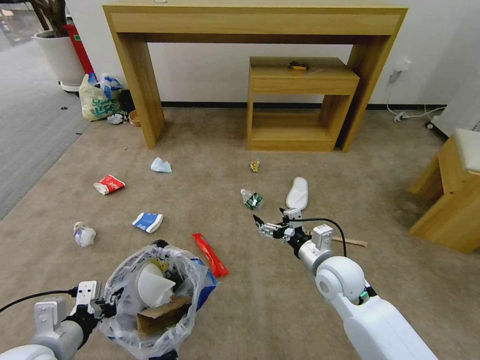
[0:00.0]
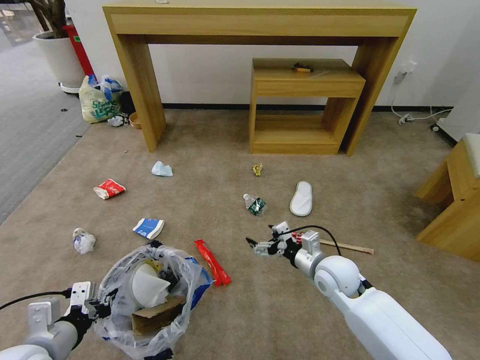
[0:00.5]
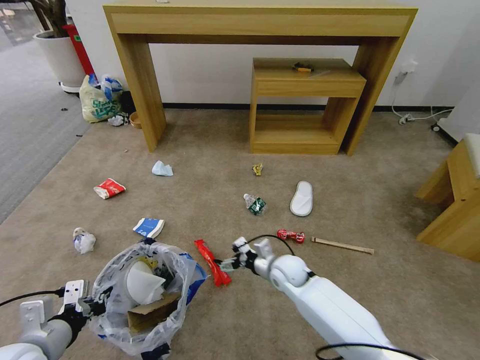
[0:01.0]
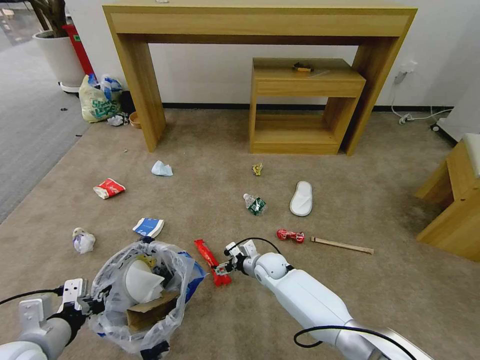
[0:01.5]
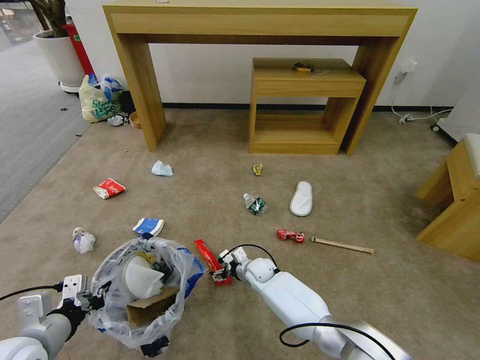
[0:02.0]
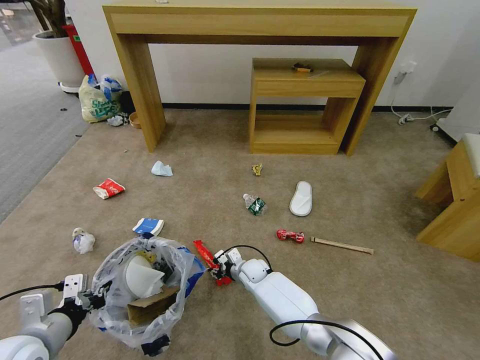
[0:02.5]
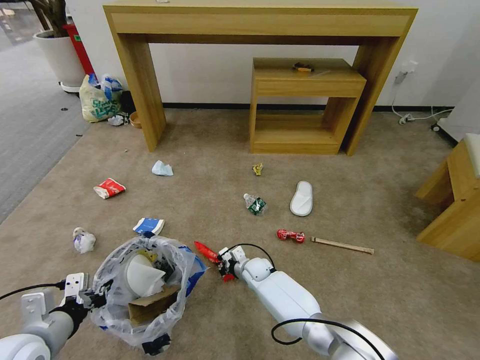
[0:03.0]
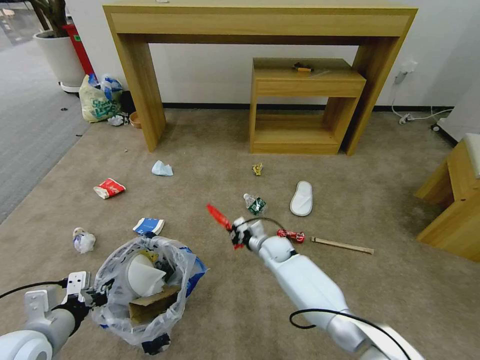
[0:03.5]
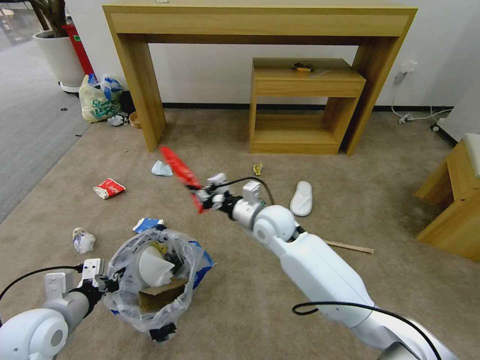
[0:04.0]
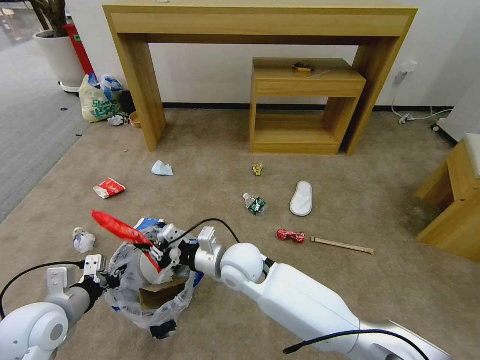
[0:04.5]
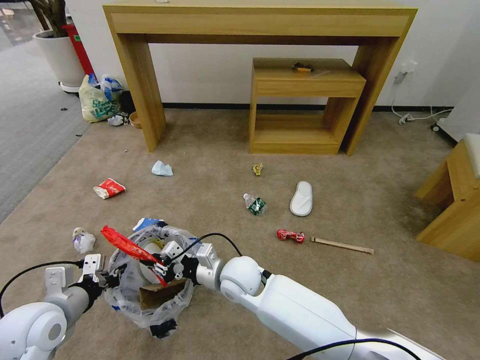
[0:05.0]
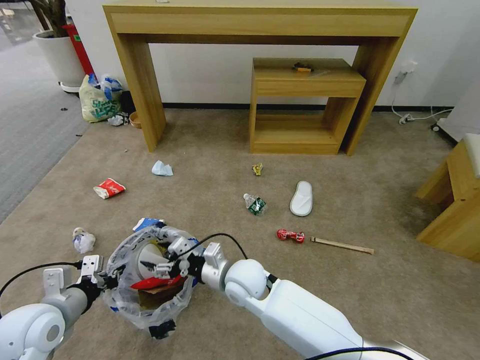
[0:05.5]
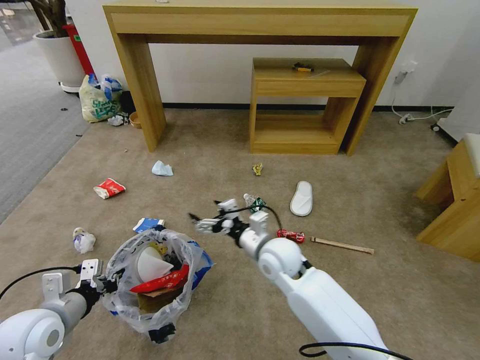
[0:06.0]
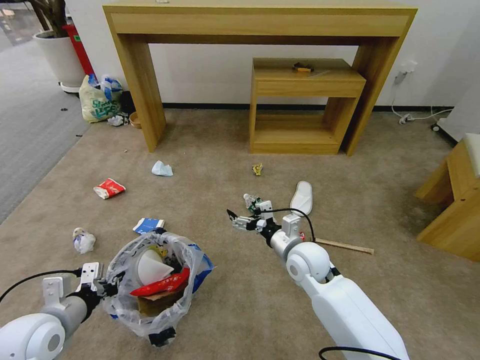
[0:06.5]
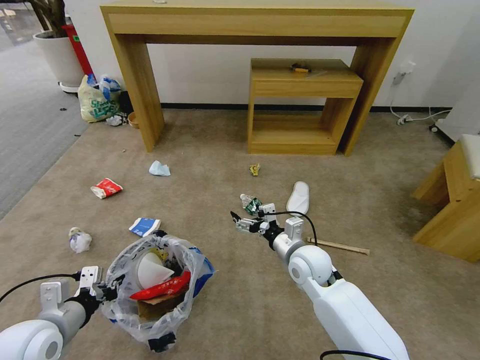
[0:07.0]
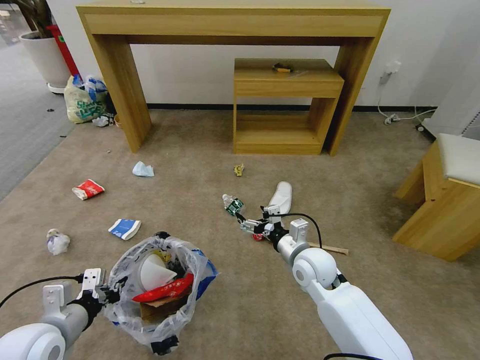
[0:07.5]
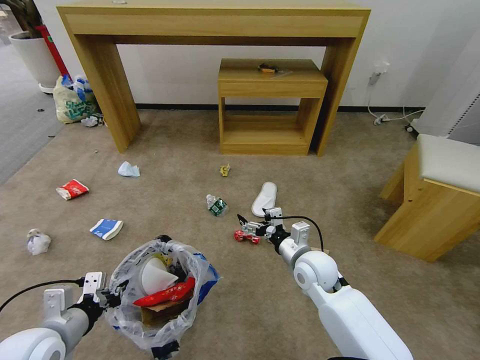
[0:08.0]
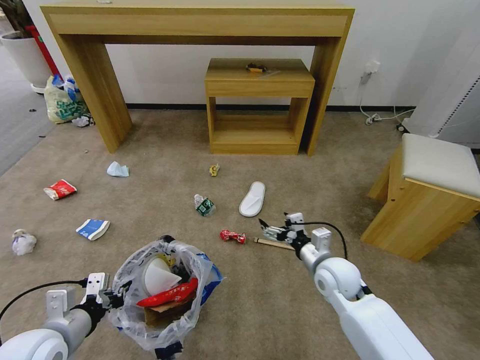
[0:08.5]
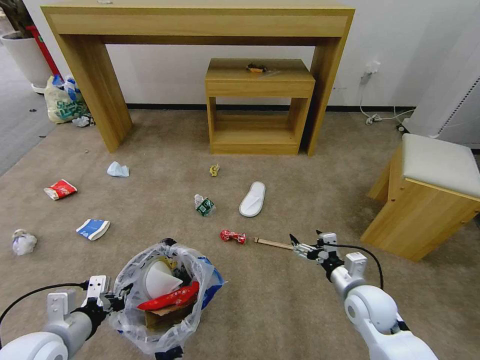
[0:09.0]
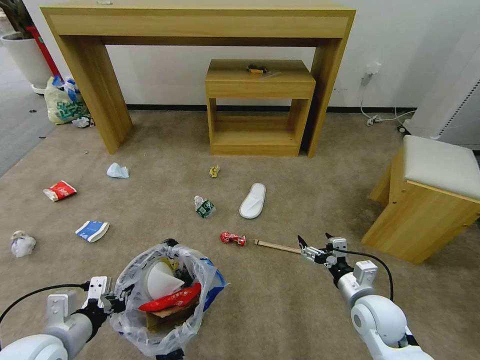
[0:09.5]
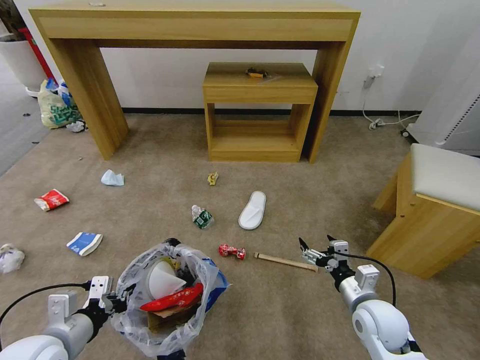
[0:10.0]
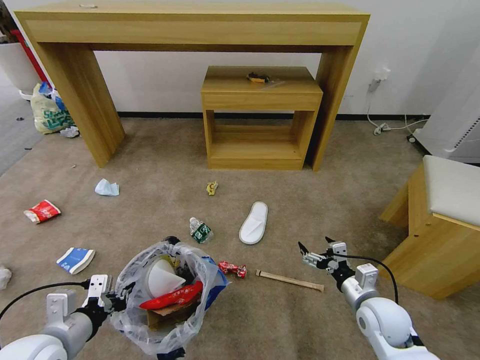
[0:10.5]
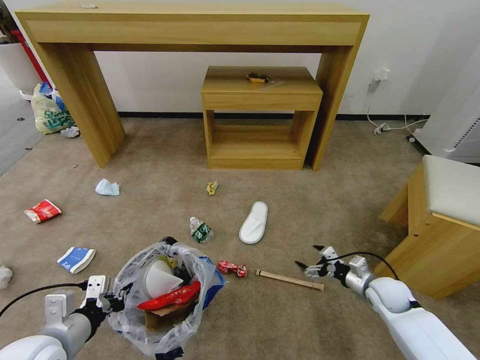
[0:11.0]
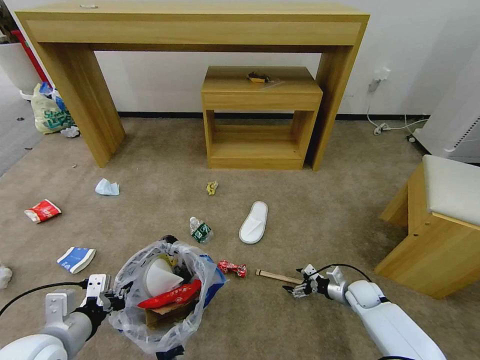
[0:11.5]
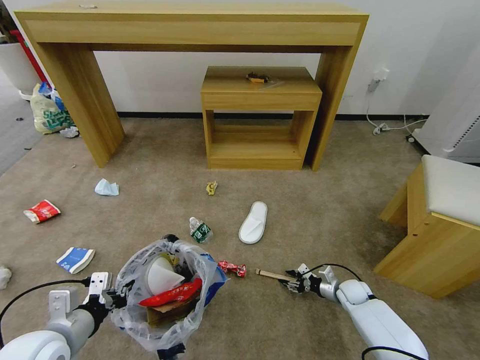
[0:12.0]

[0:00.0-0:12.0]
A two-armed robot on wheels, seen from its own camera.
Task of the whole recording: Pick up the trash bin and place the garbage on the floor into it.
0:00.0 to 0:02.0: The right gripper travels downward, to the left and forward by some 25 cm.
0:02.0 to 0:04.0: The left gripper ends up some 5 cm from where it was, while the right gripper heads upward, covering roughly 25 cm, and closes.
0:04.0 to 0:06.0: The right gripper heads backward, covering about 5 cm, and opens up.
0:06.0 to 0:08.0: The right gripper is displaced to the right by approximately 10 cm.
0:08.0 to 0:10.0: The right gripper travels to the right and backward by approximately 15 cm.
0:10.0 to 0:12.0: The right gripper moves downward and forward, approximately 20 cm, and closes its fingers.

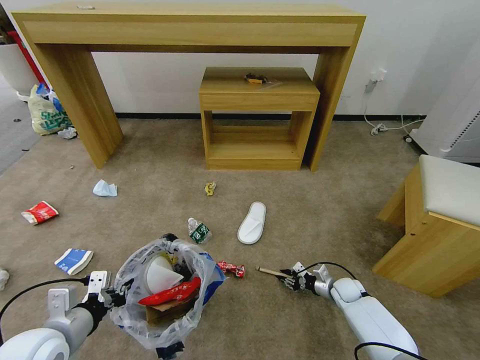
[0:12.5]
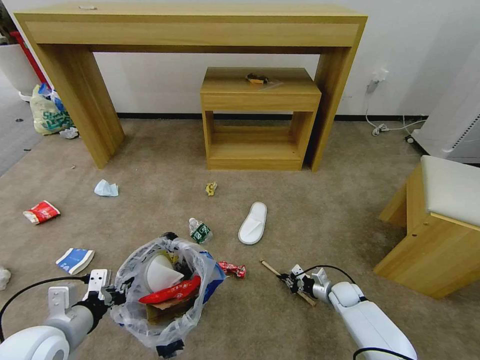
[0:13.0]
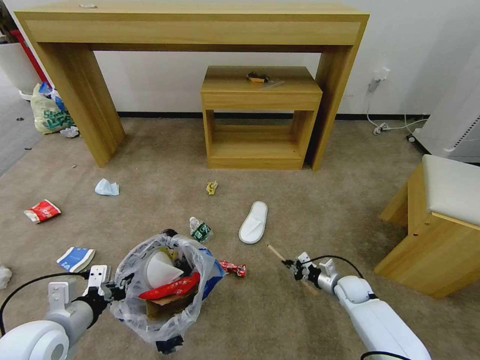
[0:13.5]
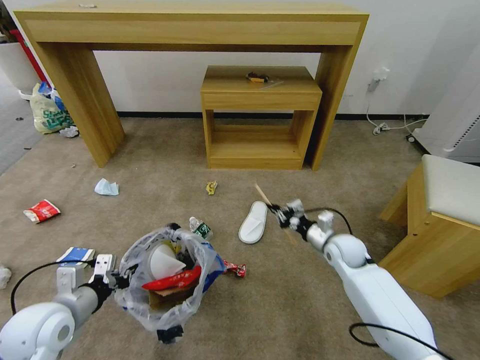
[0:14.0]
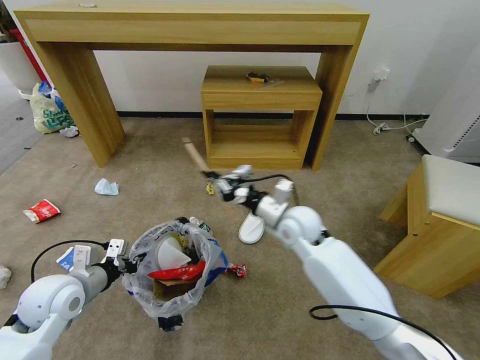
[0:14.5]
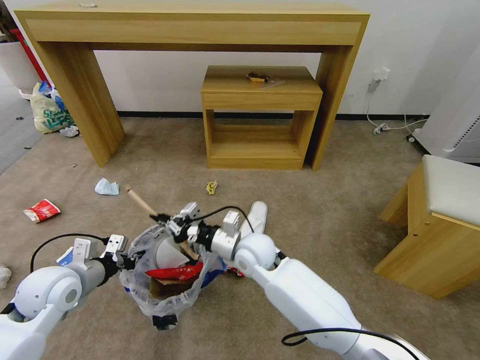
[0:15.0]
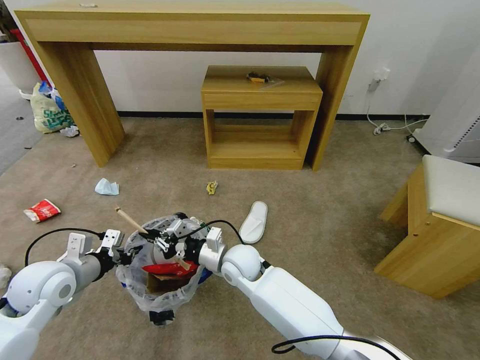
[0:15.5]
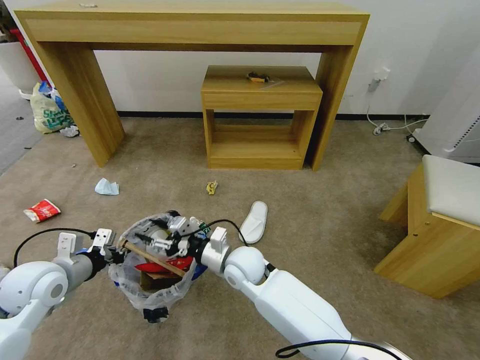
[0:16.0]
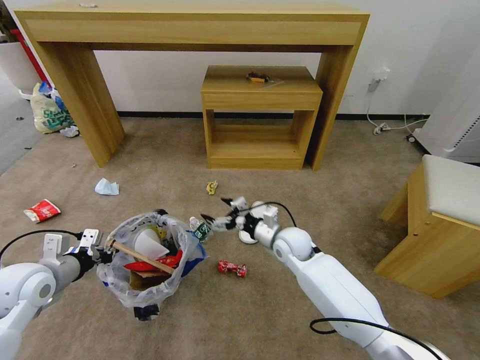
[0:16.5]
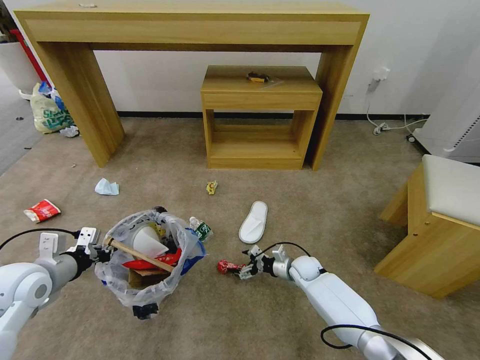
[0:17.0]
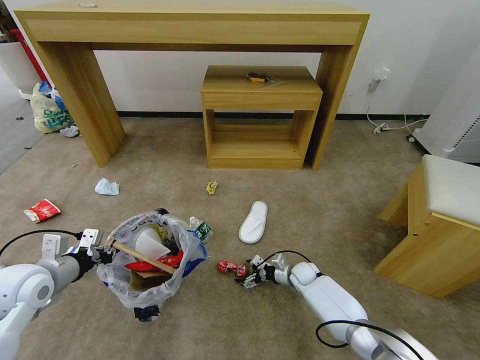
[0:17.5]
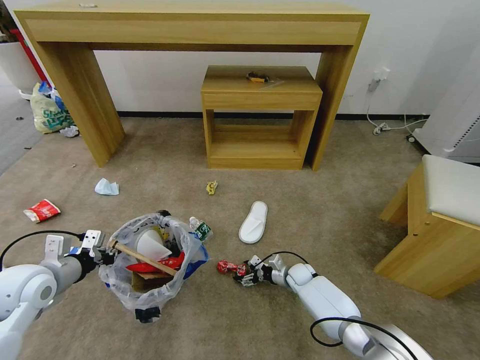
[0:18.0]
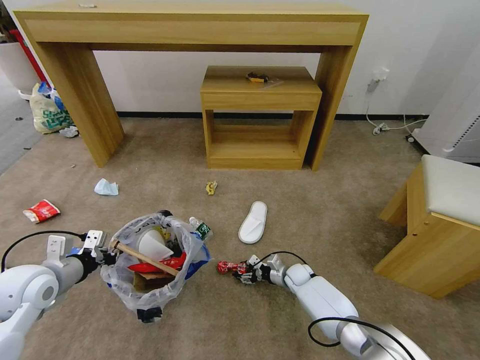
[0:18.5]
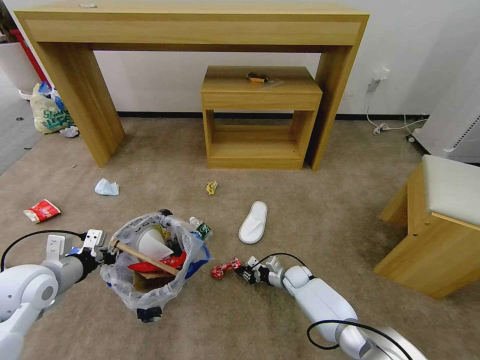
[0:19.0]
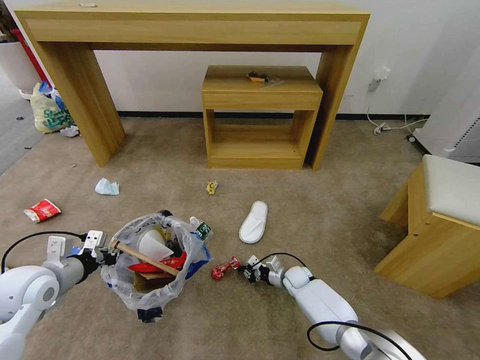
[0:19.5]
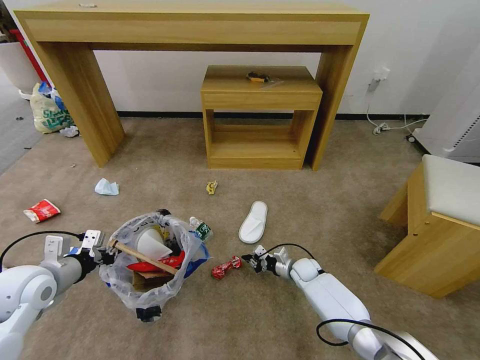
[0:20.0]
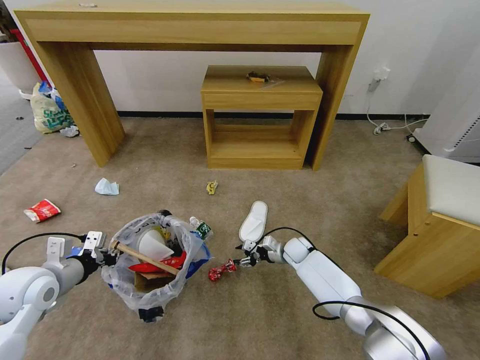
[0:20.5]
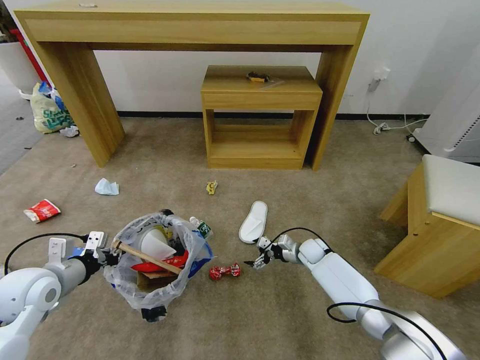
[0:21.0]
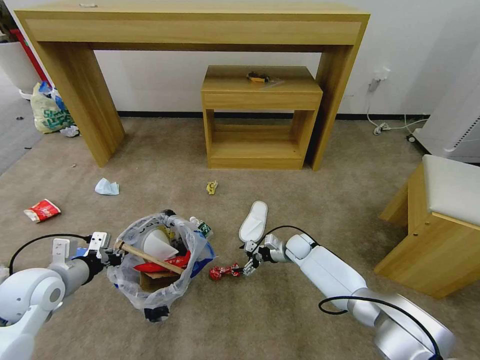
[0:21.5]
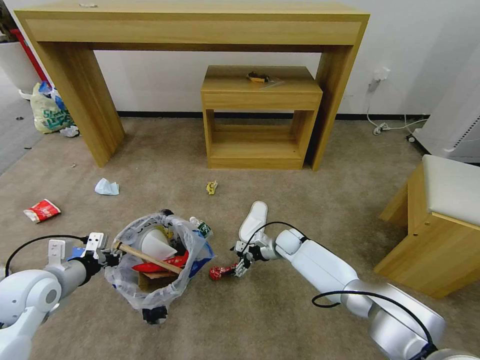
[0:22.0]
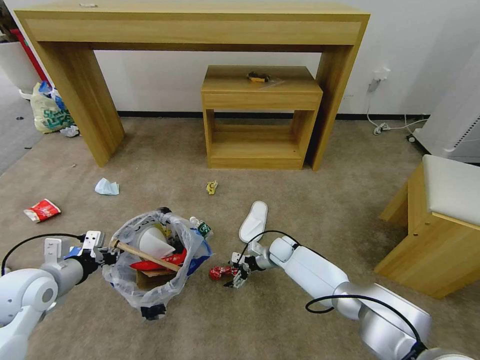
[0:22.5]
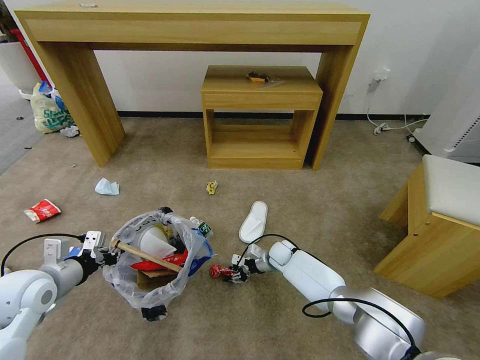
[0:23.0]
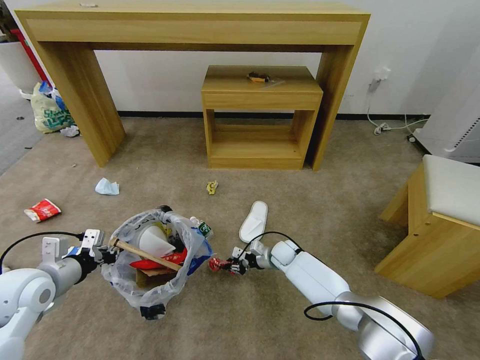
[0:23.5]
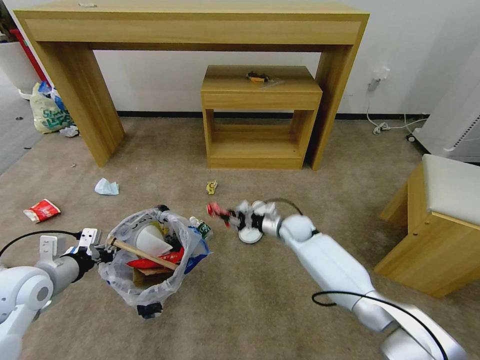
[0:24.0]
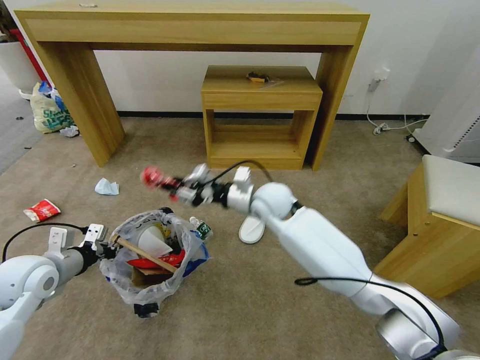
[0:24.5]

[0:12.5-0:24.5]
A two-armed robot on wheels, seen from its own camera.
Task of the whole recording: Pick up the trash bin and place the garbage on the floor into it.
0:12.5 to 0:14.5: The right gripper shifts some 35 cm upward and to the left. Meanwhile the left gripper travels forward by approximately 10 cm.
0:14.5 to 0:16.5: The right gripper moves downward, some 10 cm, moves roughly 15 cm to the left and comes back, and opens its fingers. Meanwhile the left gripper shifts roughly 5 cm to the left.
0:16.5 to 0:18.5: The right gripper travels downward by about 20 cm, and closes up.
0:18.5 to 0:20.5: The right gripper shifts roughly 10 cm upward and forward, and closes, then reopens.
0:20.5 to 0:22.5: The right gripper opens.
0:22.5 to 0:24.5: The right gripper is displaced upward by some 25 cm, and closes.

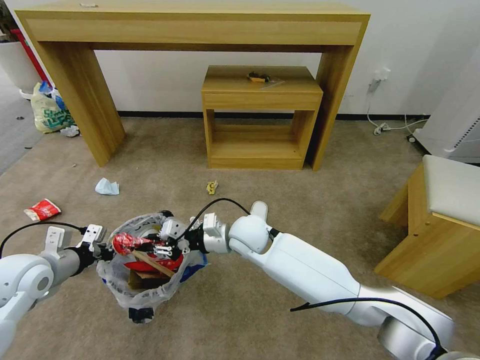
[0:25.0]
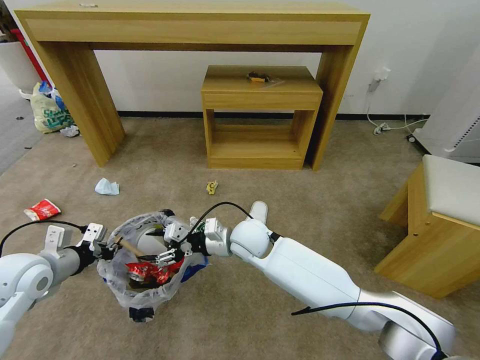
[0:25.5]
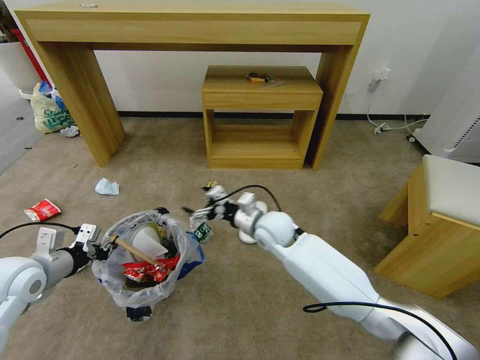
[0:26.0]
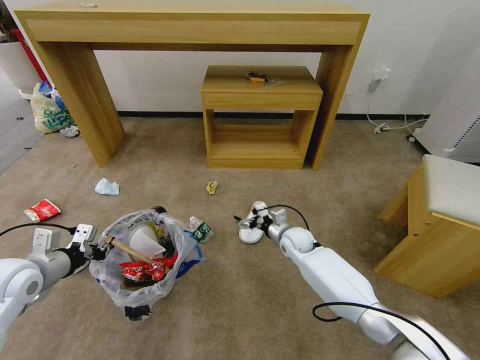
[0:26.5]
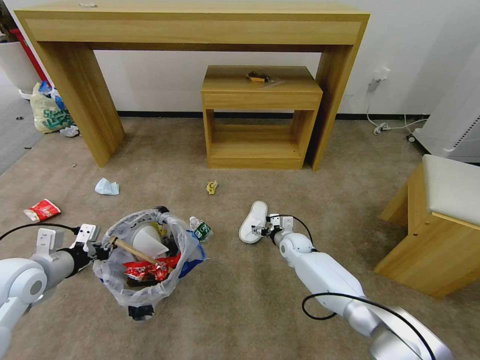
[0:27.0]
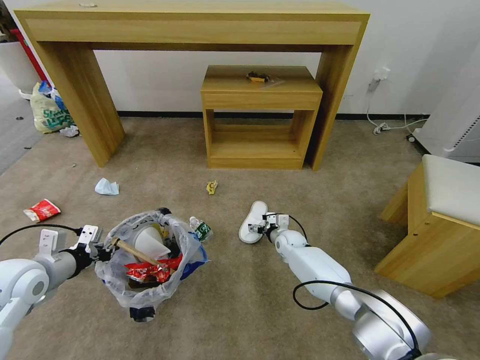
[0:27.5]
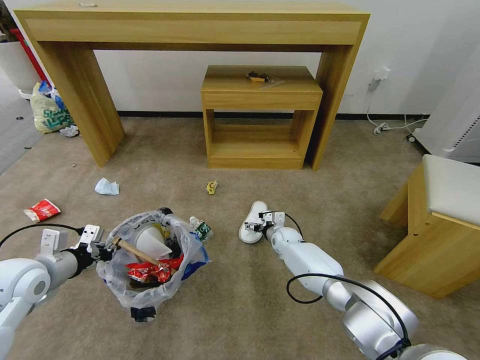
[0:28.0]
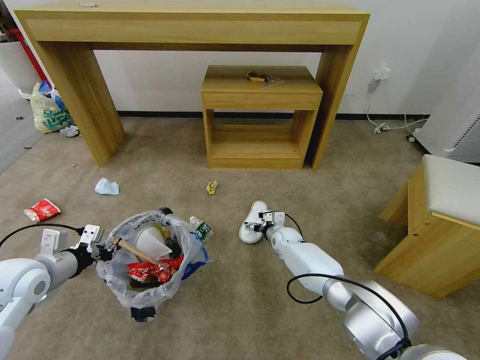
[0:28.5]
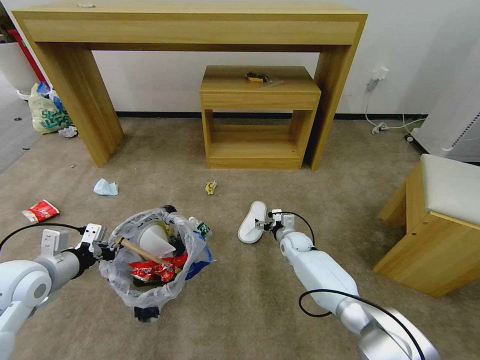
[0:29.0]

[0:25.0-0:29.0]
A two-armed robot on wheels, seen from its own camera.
Task of the whole recording: Pick up the trash bin and place the garbage on the floor into it.
0:25.0 to 0:27.0: The right gripper heads downward, to the right and forward, covering some 25 cm, and opens its fingers.
0:27.0 to 0:29.0: The grippers stay close to where they were, moving slightly.
